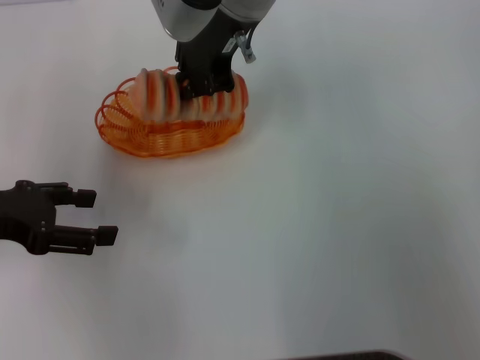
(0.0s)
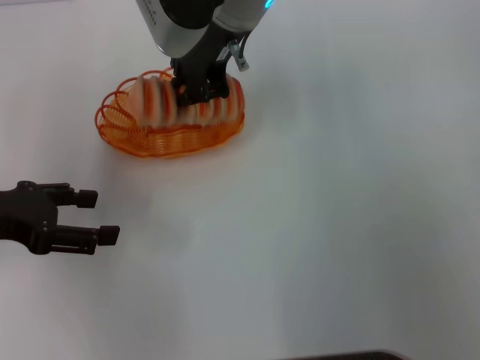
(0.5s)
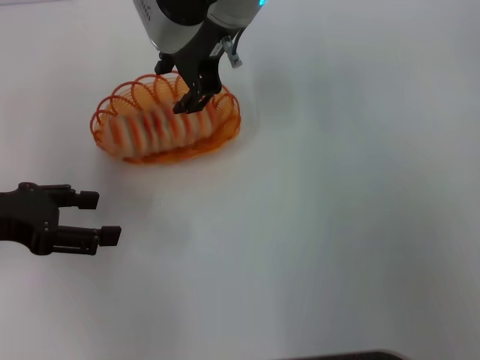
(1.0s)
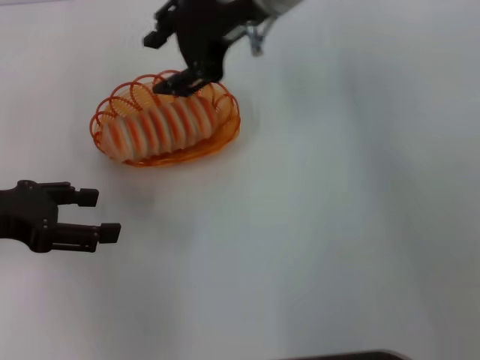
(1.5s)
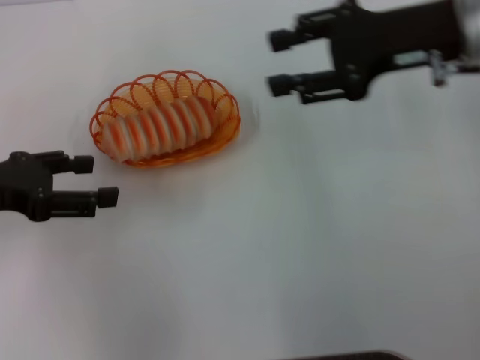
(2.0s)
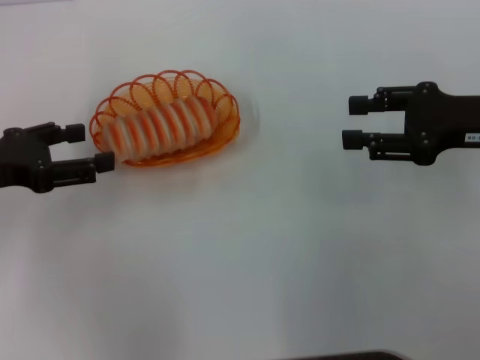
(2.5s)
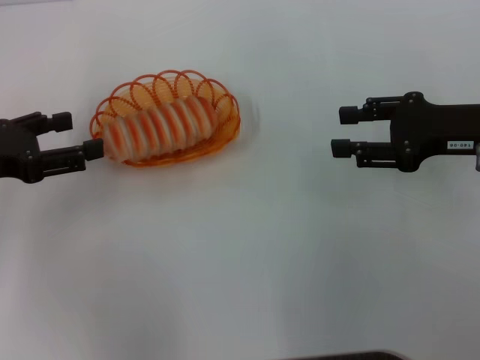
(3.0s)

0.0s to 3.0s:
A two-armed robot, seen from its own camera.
0.0s to 1.5s: The right gripper ends up some 5 cm from where it was, and opens.
1.5s to 3.0s: The right gripper moves to the right, downward and backward, some 25 cm.
